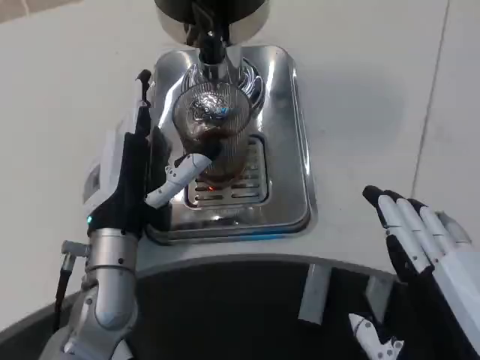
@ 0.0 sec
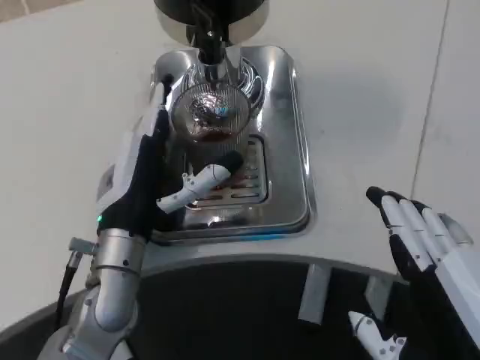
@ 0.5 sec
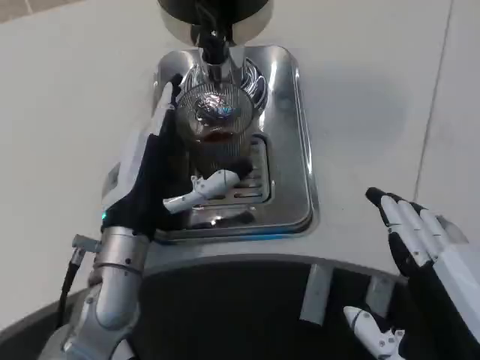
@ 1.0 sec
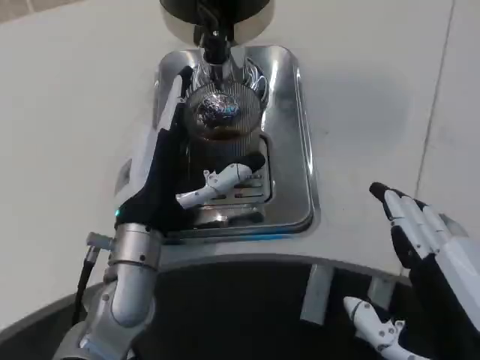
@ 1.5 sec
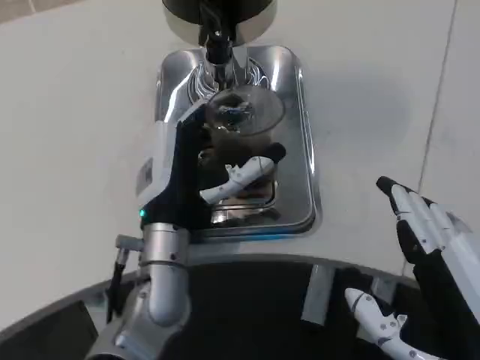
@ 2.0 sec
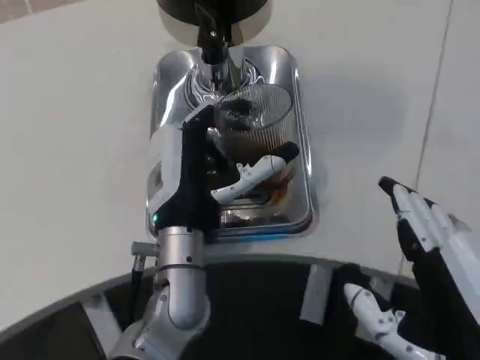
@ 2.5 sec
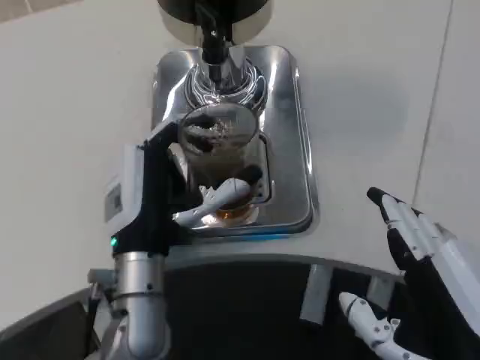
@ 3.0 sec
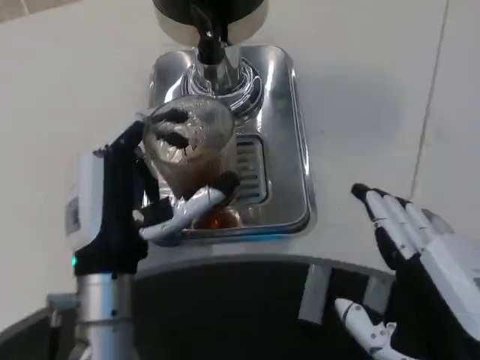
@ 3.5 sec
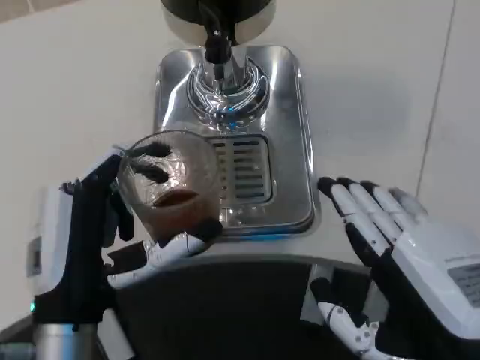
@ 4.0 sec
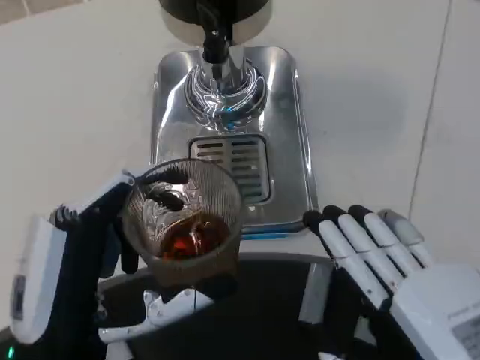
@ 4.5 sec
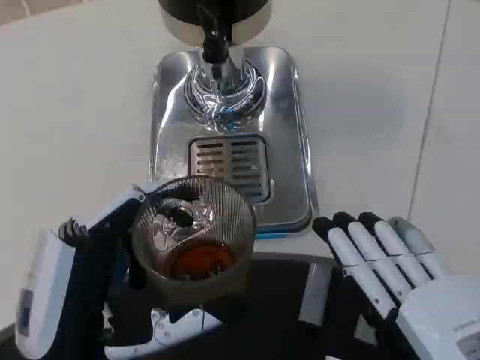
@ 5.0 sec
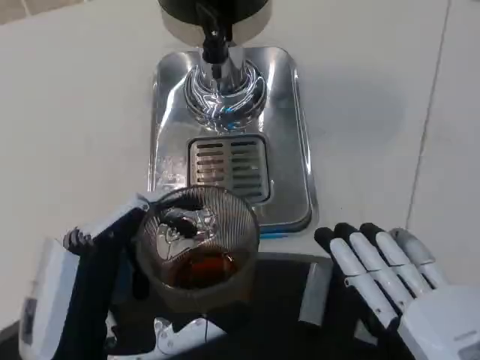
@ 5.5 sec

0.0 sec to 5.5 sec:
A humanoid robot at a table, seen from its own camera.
Task of the whole recording: Grasp the cup under the faucet to collect the drink, then remove the cup.
0.0 sec to 2.0 sec: The left hand is displaced to the right by approximately 5 cm.
2.0 sec to 3.5 sec: The left hand goes roughly 5 cm backward.
3.5 sec to 5.5 sec: The left hand heads backward, covering roughly 10 cm.

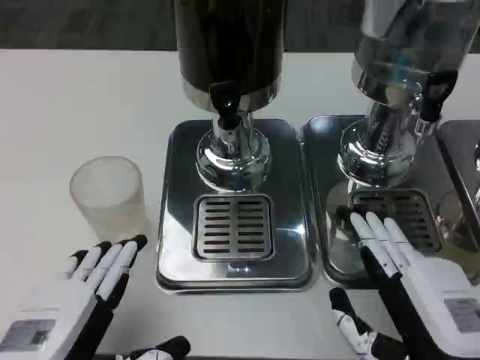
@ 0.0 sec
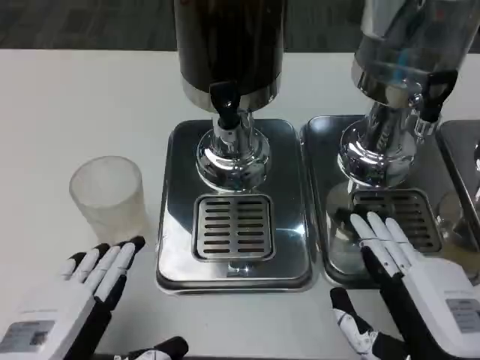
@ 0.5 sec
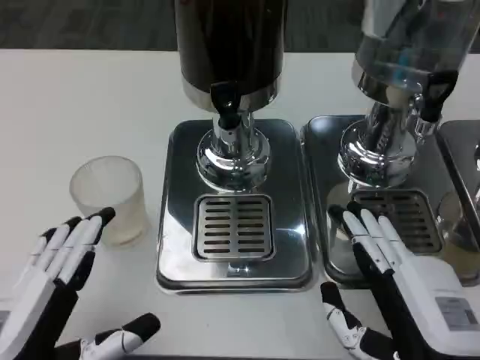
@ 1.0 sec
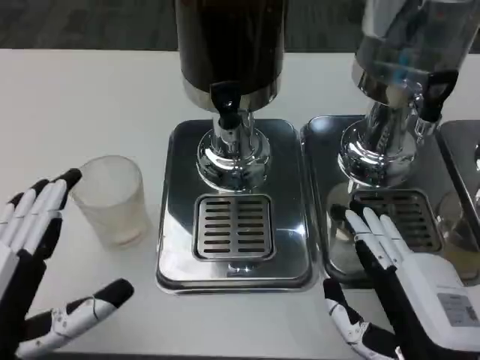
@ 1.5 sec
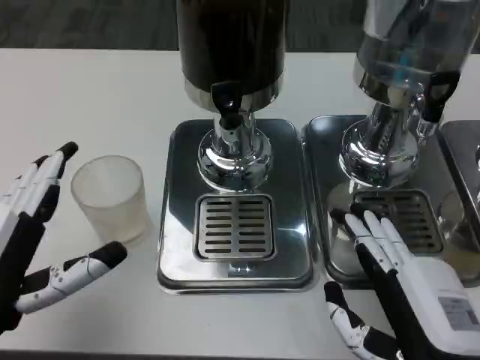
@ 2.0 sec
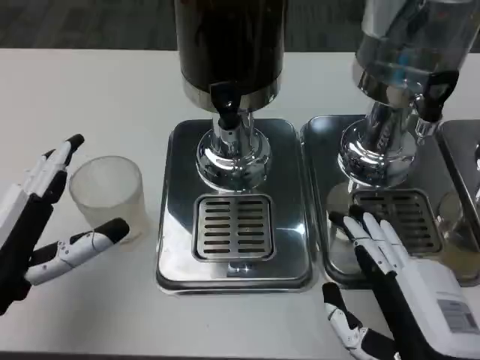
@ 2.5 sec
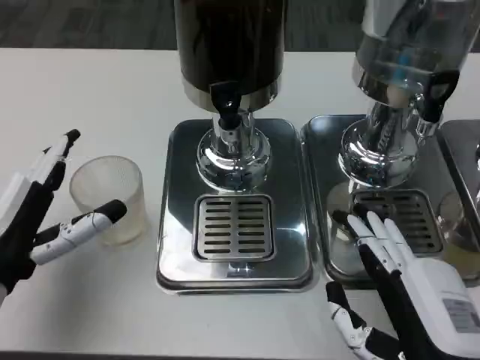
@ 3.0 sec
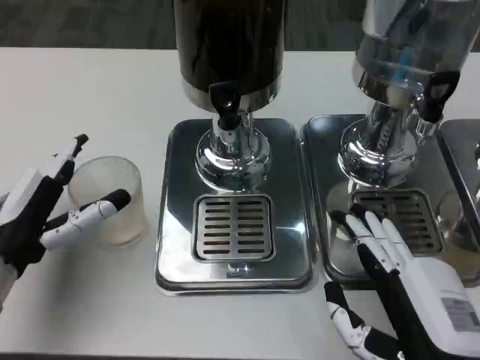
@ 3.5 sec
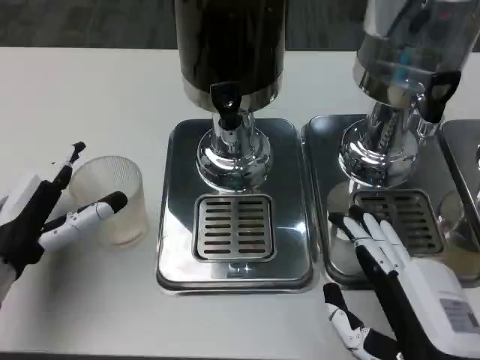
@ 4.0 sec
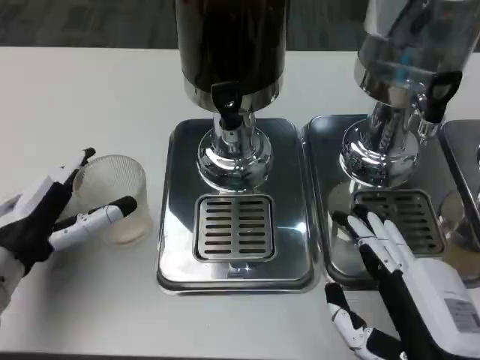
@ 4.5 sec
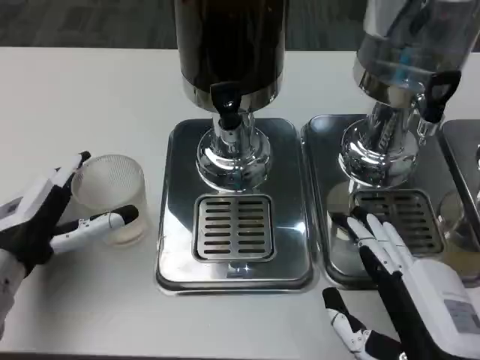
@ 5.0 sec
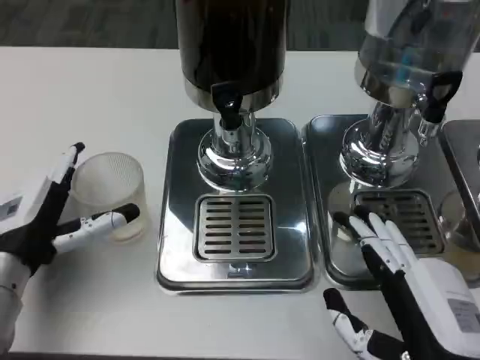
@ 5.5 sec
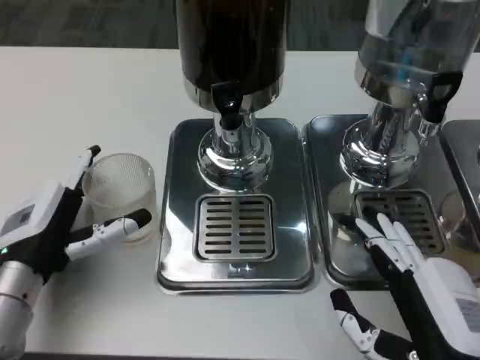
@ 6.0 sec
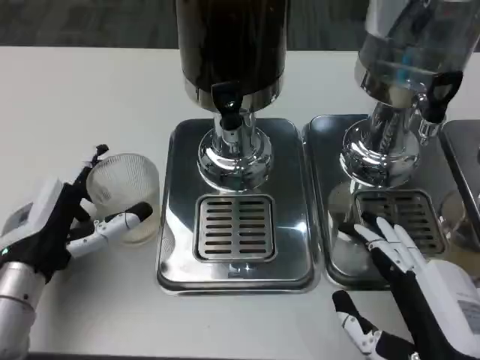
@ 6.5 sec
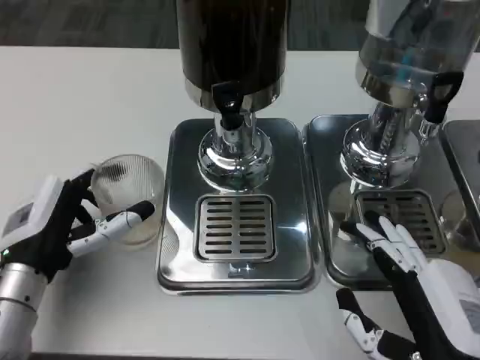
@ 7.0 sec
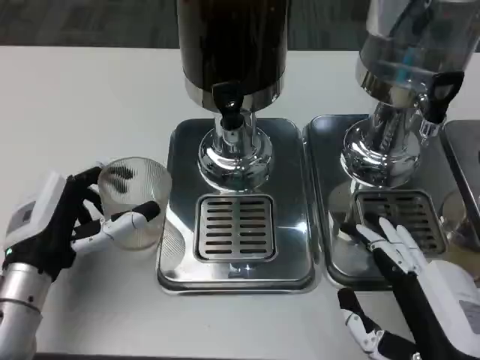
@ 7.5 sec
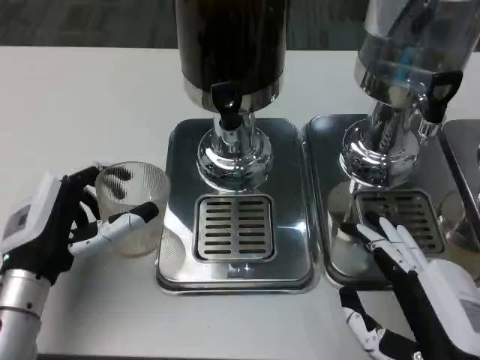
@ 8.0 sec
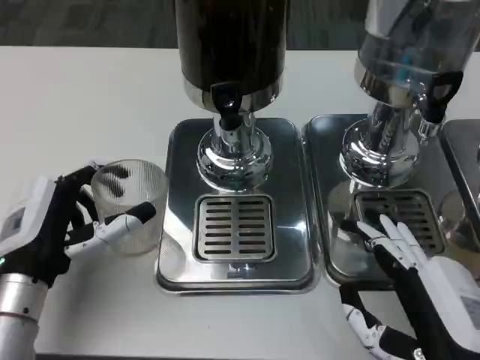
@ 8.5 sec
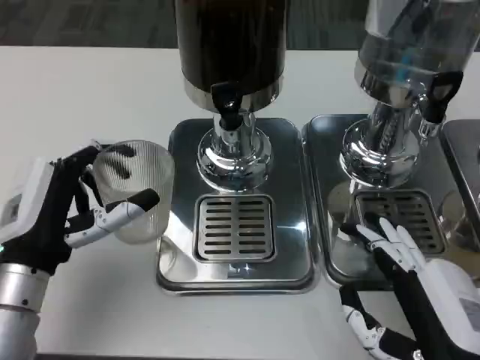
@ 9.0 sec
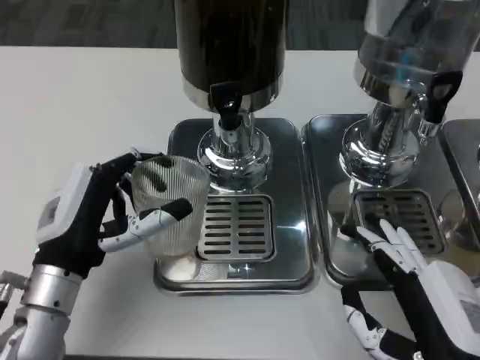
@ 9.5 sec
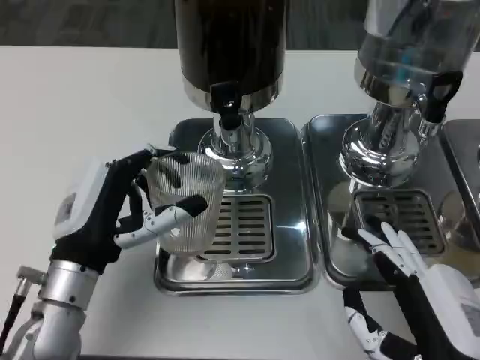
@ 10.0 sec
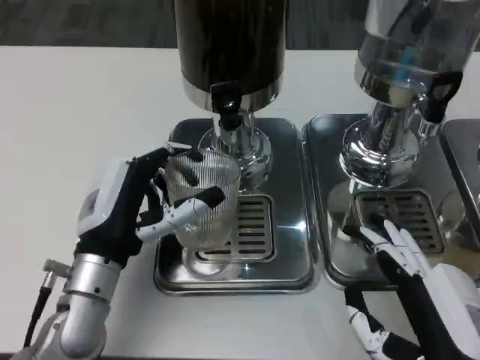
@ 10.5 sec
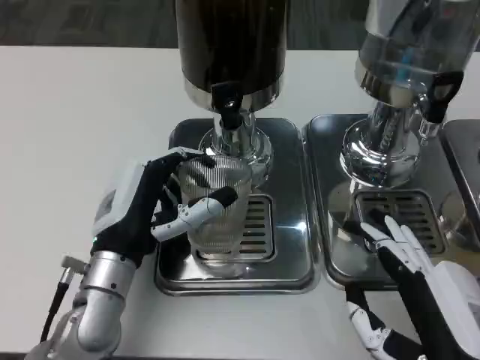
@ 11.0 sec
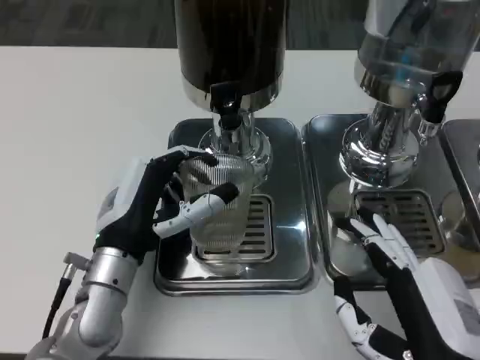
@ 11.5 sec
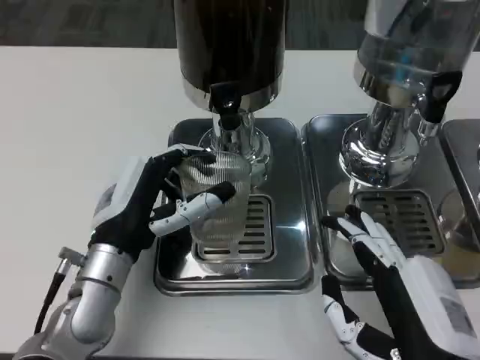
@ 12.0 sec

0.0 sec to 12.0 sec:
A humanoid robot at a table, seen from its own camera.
Task of the whole recording: Grasp the cup under the faucet to collect the drink, then remove the cup.
0.0 sec to 2.0 sec: The left hand goes some 5 cm forward.
2.0 sec to 4.0 sec: The left hand moves forward, about 10 cm.
4.0 sec to 8.0 sec: There are only small adjustments of the hands.

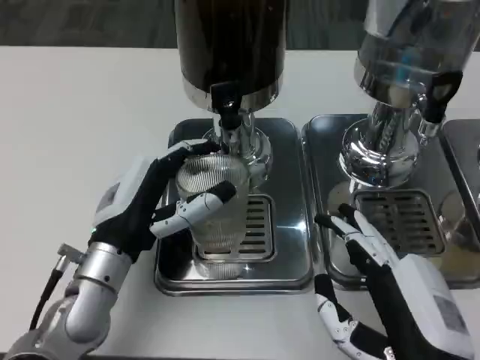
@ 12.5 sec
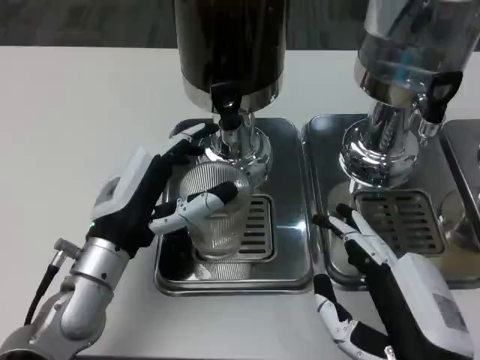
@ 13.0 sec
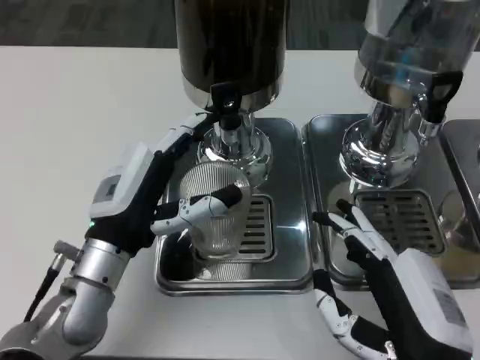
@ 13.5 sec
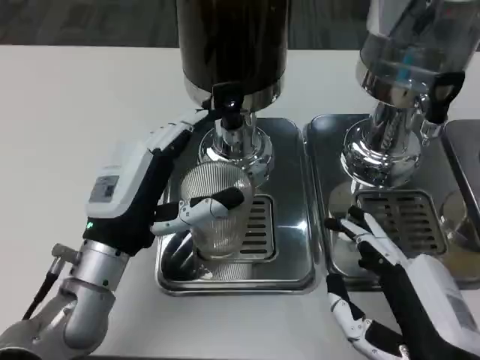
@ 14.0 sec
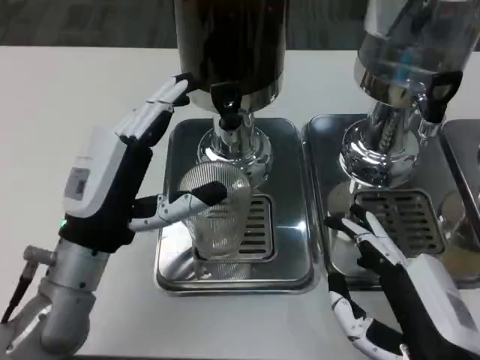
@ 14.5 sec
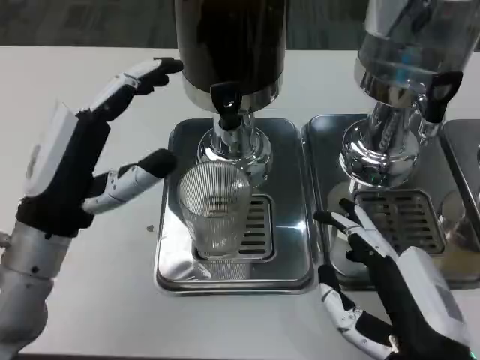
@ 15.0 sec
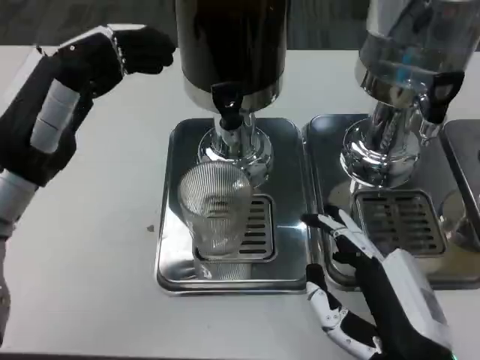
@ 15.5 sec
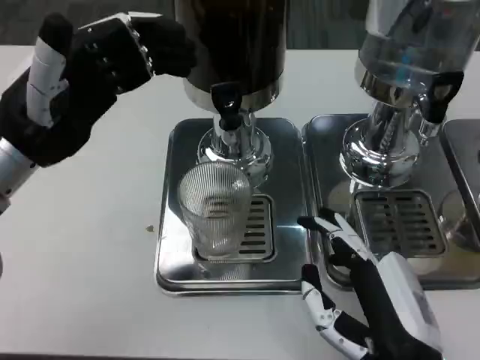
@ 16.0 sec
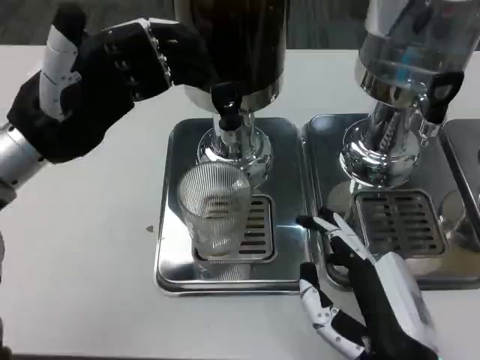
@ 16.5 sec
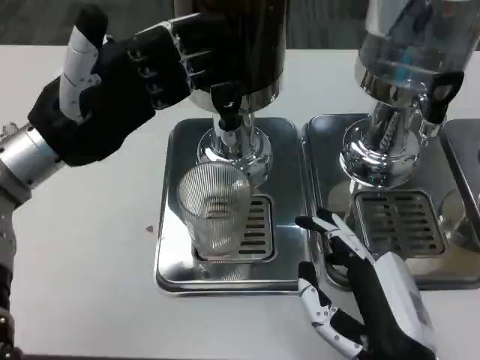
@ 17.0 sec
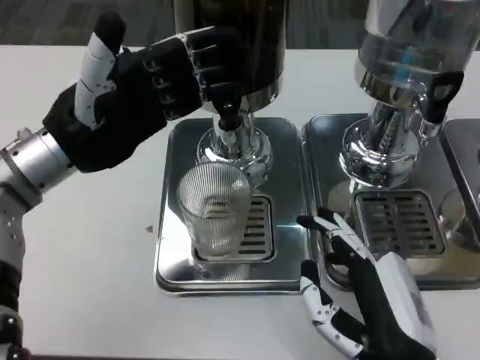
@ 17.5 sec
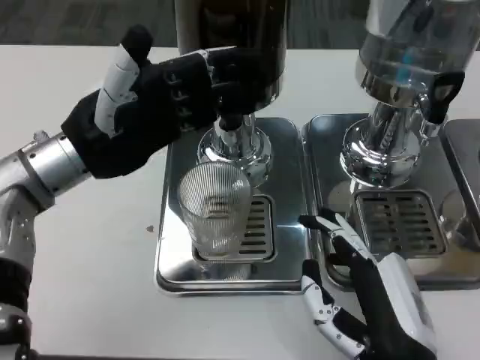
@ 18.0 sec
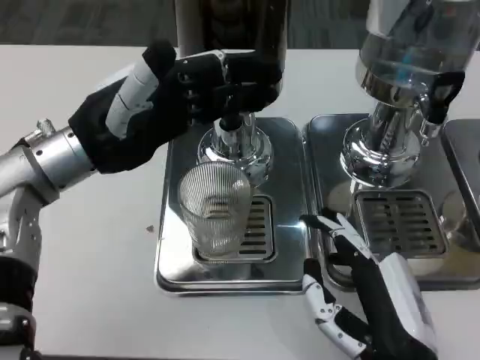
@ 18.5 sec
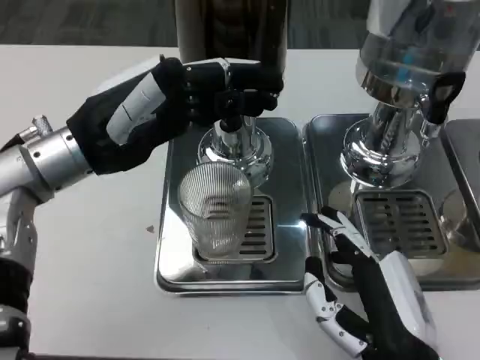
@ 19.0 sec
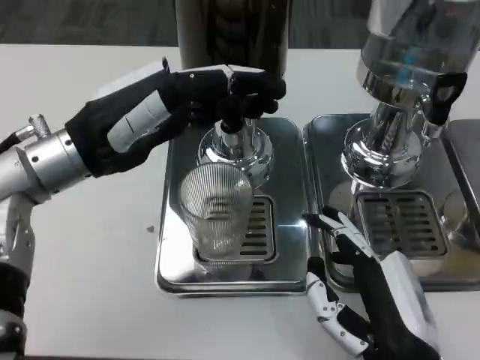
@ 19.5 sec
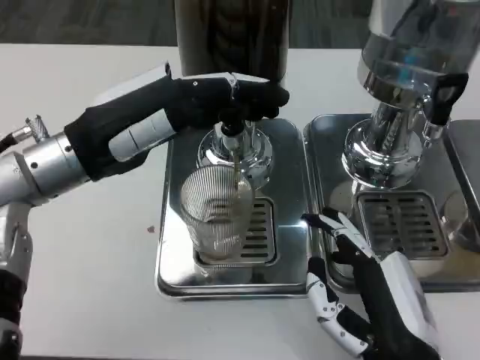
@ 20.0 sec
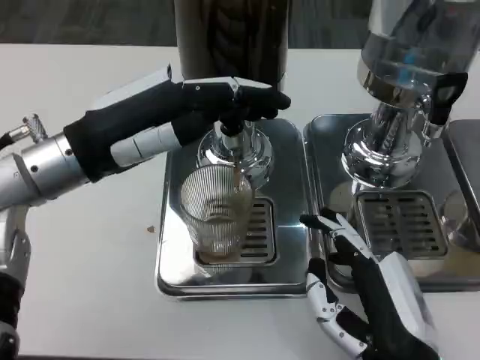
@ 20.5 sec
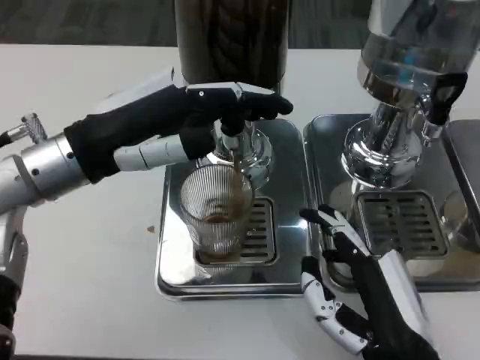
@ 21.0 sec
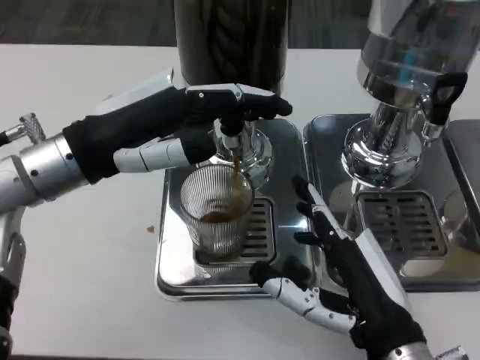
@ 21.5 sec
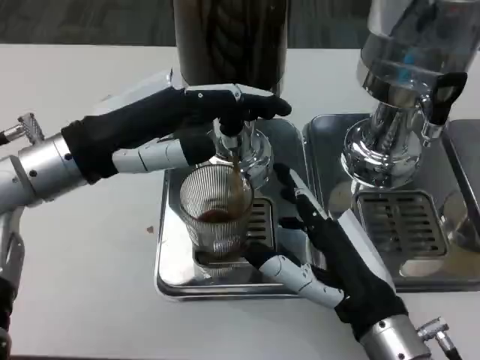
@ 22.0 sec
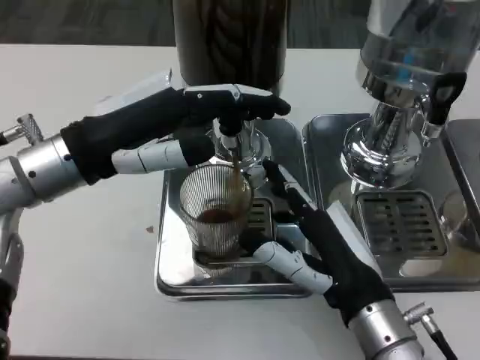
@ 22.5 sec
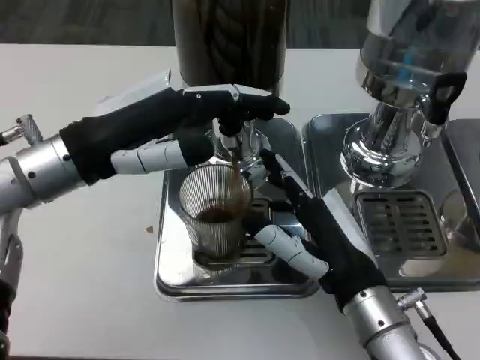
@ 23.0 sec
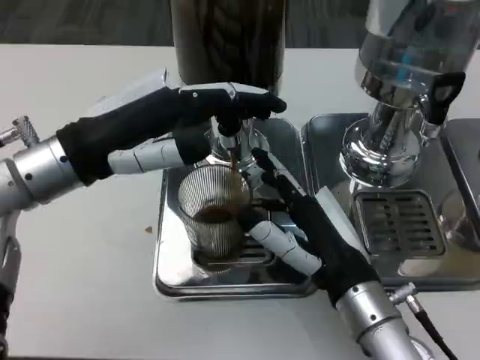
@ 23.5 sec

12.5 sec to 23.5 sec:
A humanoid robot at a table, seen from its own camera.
Task of the whole recording: Grasp the cup under the faucet to collect the drink, then remove the cup.
14.5 sec to 16.0 sec: The left hand heads upward, to the left and forward, covering approximately 15 cm.
20.0 sec to 21.5 sec: There are only small adjustments of the hands.
21.5 sec to 23.5 sec: The right hand travels forward by some 5 cm.
